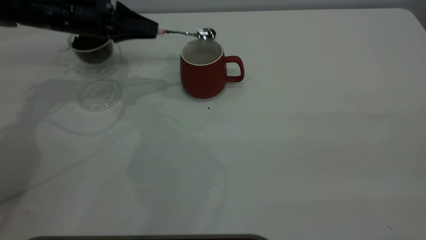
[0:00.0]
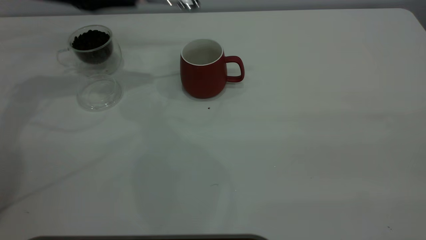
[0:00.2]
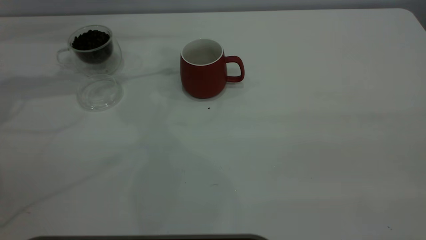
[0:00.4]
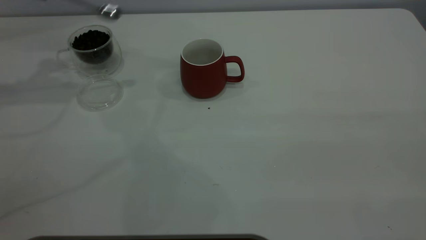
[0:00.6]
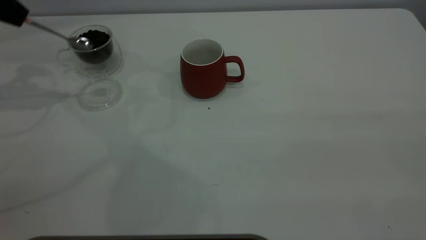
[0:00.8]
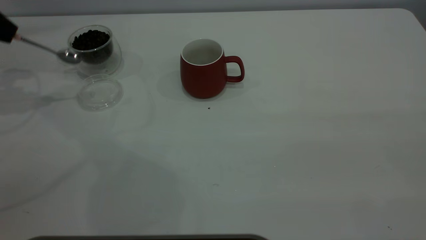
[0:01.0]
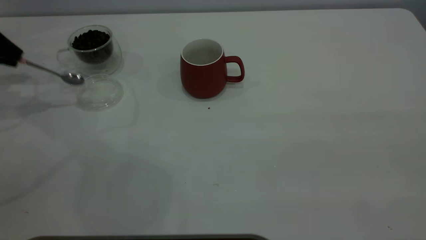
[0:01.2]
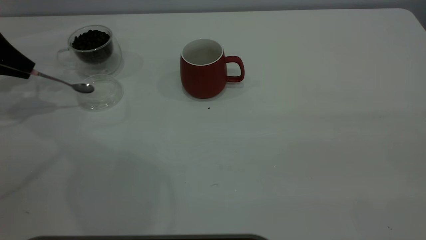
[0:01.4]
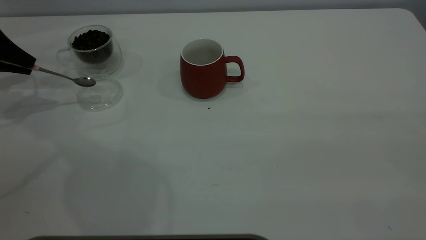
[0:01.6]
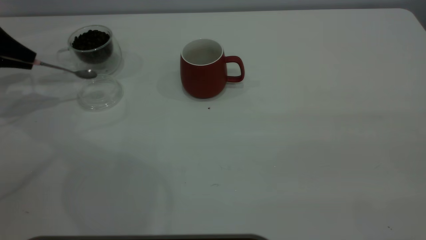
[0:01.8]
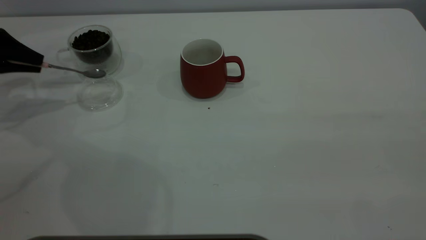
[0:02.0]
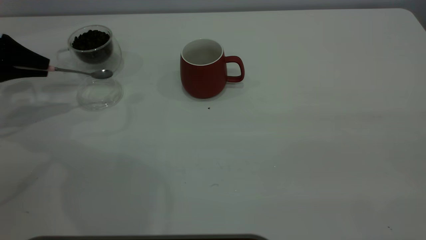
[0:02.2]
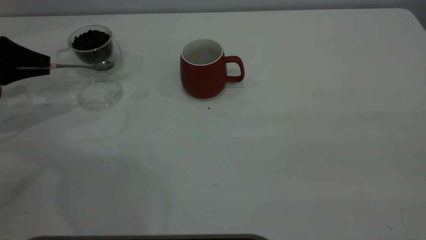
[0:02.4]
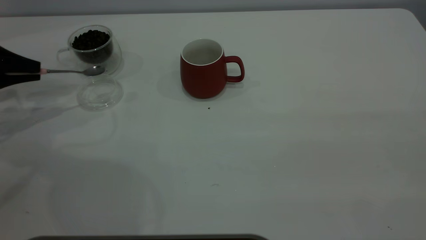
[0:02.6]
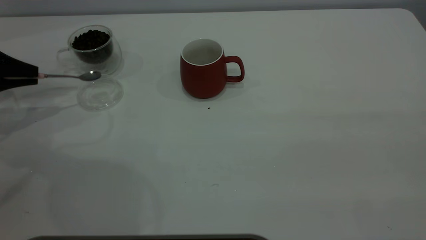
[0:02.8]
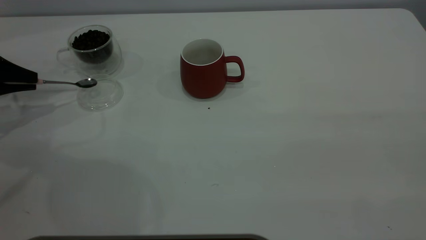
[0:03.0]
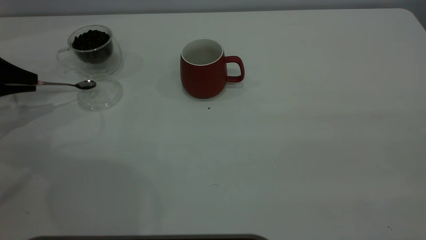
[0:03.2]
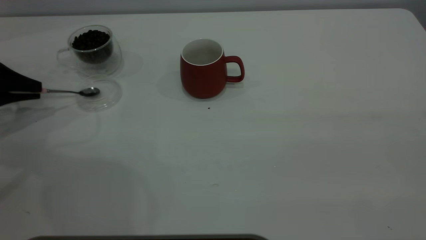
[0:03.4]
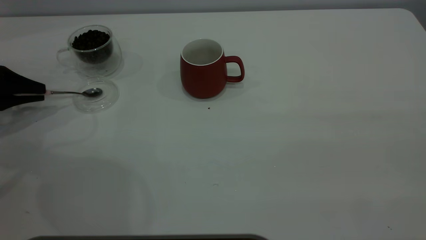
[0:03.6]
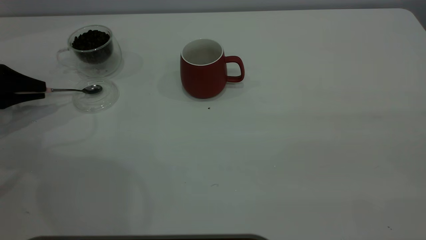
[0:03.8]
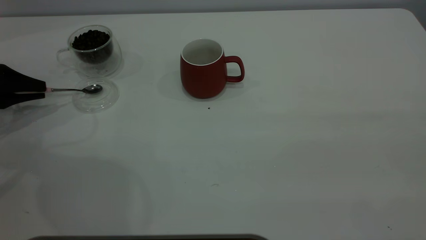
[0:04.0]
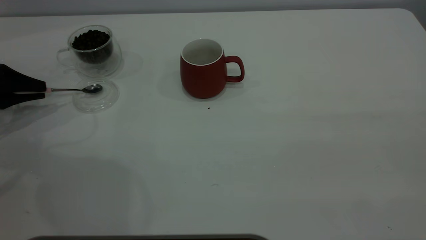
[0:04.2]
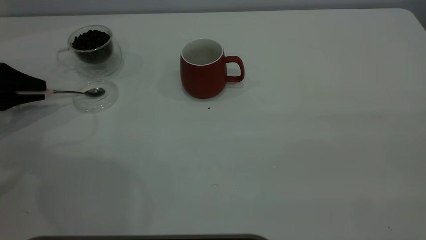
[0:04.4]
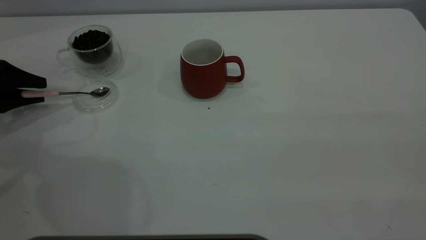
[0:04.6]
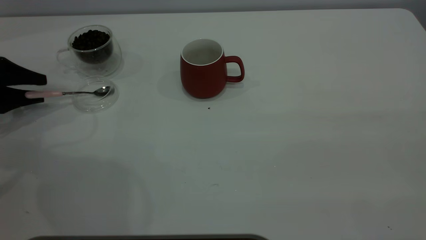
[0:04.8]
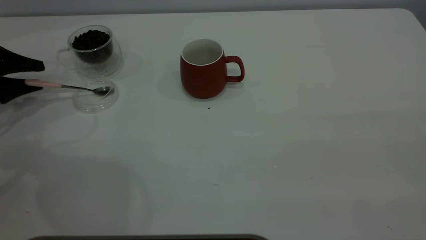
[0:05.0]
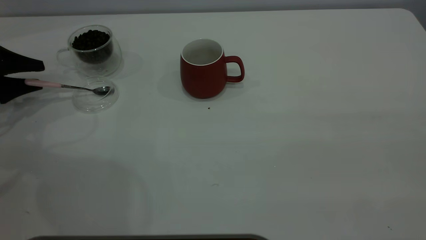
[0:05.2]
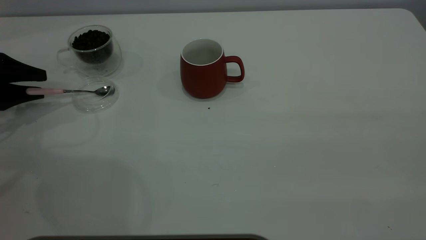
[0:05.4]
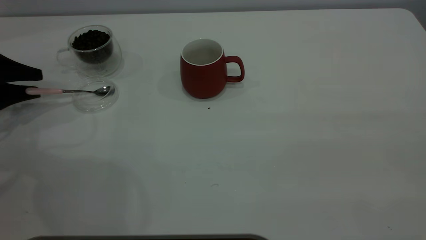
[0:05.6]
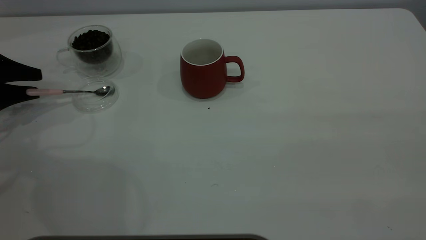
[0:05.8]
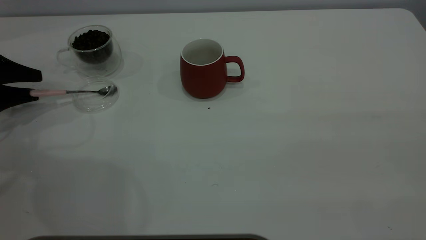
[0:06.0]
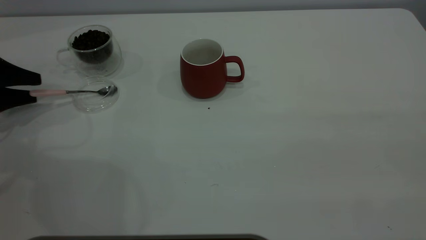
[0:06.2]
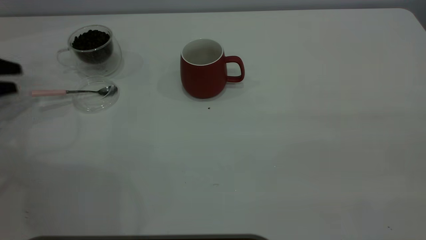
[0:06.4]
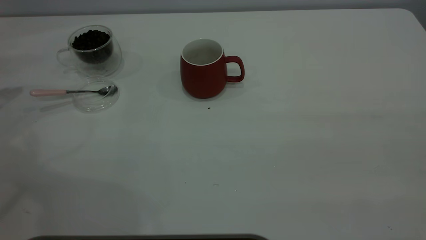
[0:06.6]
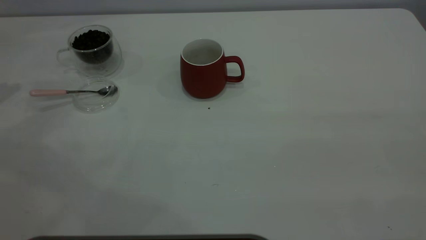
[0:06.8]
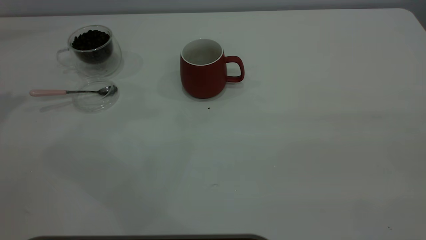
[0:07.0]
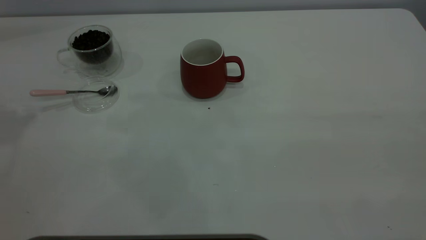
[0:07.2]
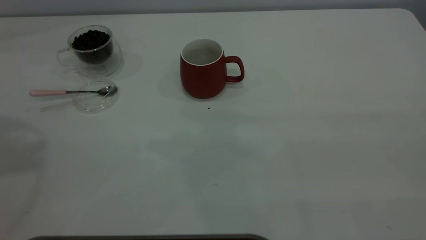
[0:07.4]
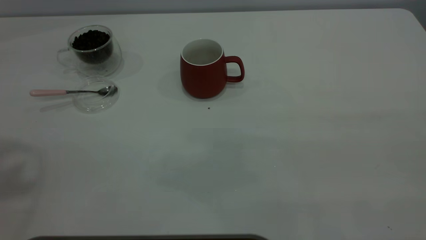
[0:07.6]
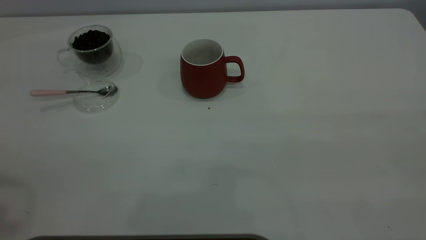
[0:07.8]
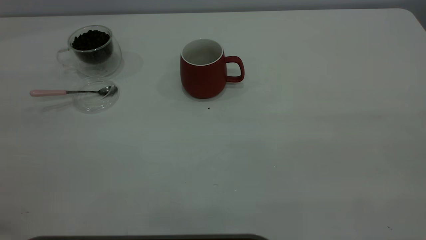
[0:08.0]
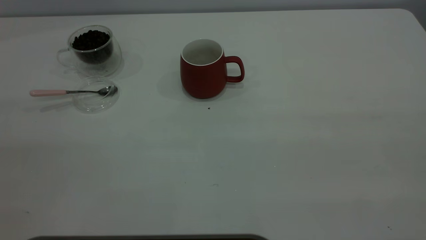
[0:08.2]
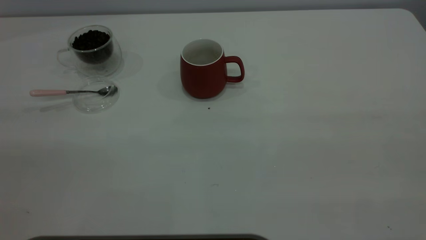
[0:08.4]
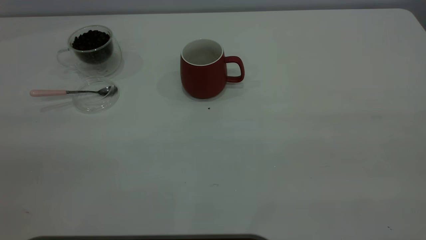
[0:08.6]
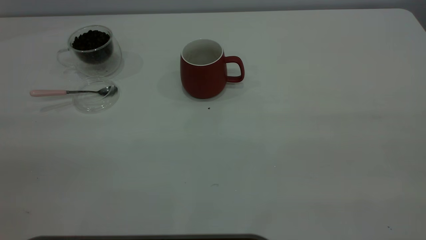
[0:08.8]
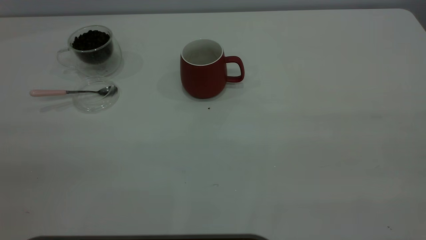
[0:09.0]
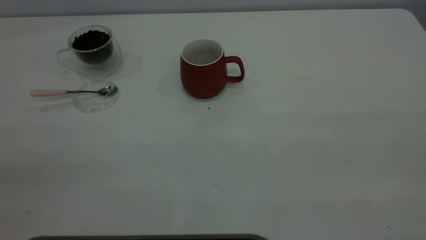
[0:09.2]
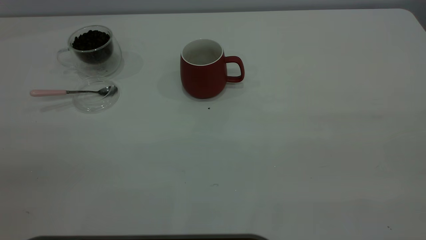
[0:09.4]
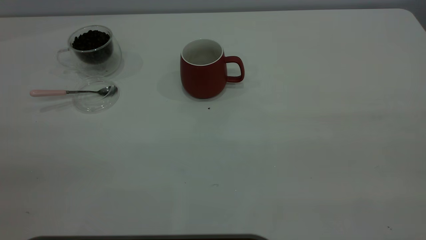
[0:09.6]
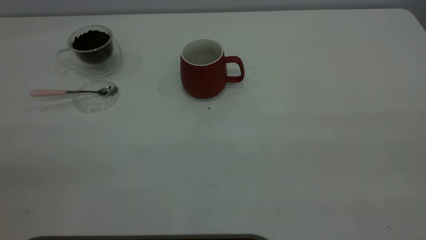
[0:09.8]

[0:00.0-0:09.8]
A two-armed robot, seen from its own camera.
Task of the whole recording: the right gripper place the red cup in the center of the table, the left gripper take the pink spoon from the cup lid and scoop out the coffee beans from the coffee cup and put them into the red cup, the left gripper put the spoon back into the cup lid.
Step, 0:00.2 to 0:06.4: Place the spoon back in its original place.
0:00.0 to 0:01.4: The left gripper heads to the left, covering approximately 20 cm.
0:01.4 to 0:02.8: The left gripper changes place by roughly 5 cm.
0:02.8 to 0:04.2: The grippers stay close to where they were, moving slightly.
0:04.2 to 0:05.6: The left gripper opens its fingers.
0:05.6 to 0:07.0: The left gripper goes roughly 30 cm upward.

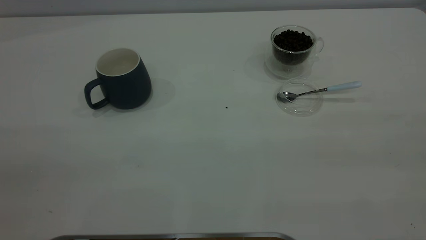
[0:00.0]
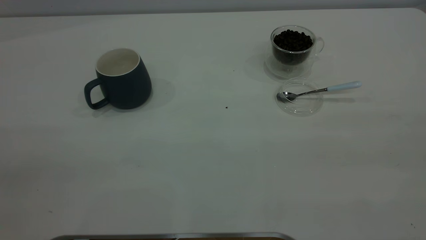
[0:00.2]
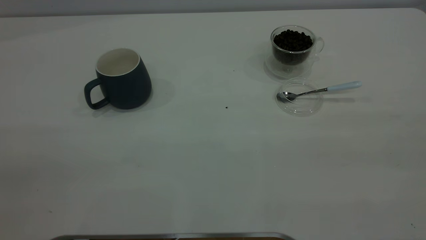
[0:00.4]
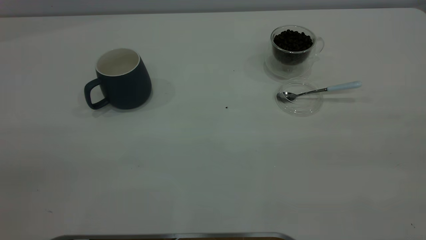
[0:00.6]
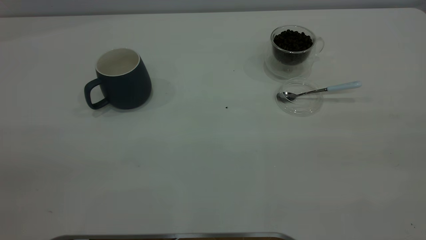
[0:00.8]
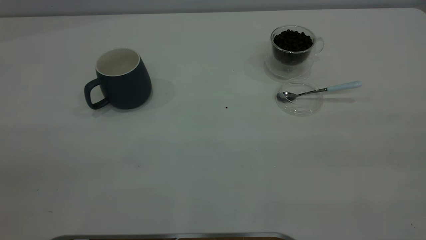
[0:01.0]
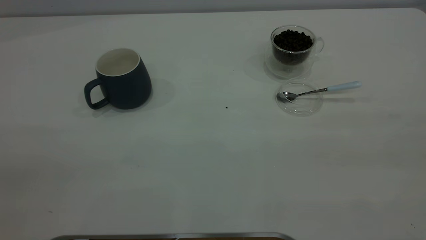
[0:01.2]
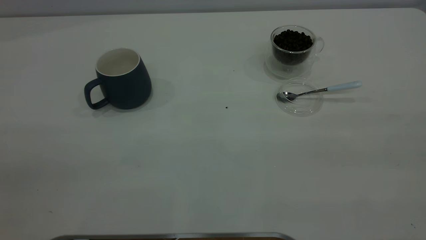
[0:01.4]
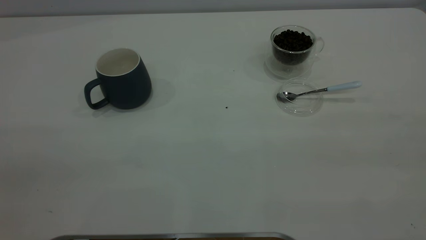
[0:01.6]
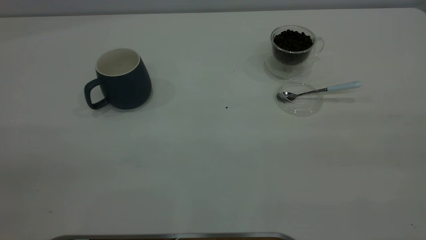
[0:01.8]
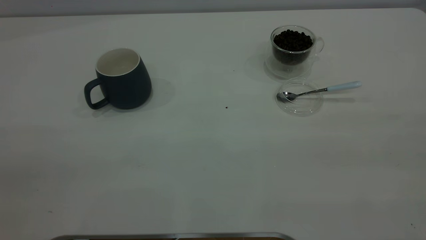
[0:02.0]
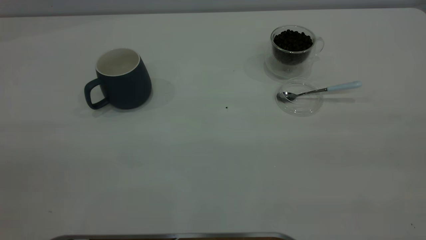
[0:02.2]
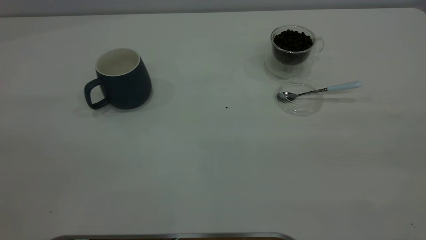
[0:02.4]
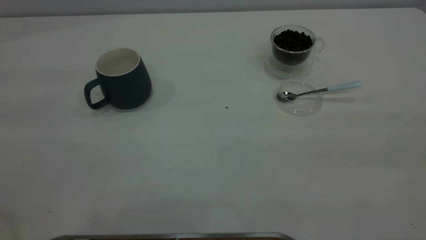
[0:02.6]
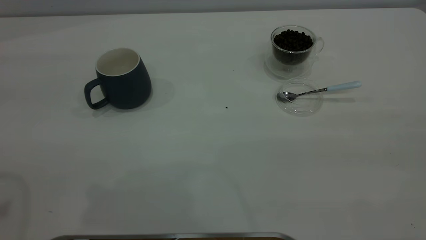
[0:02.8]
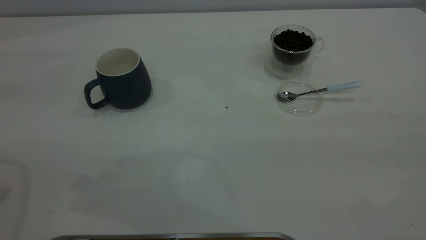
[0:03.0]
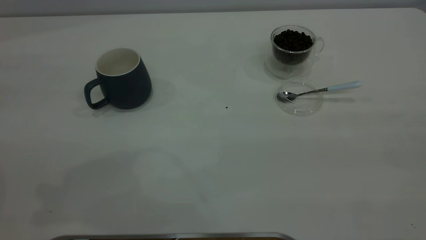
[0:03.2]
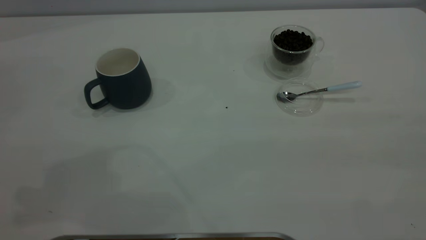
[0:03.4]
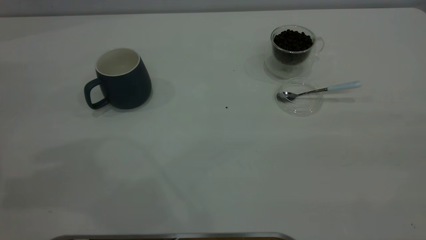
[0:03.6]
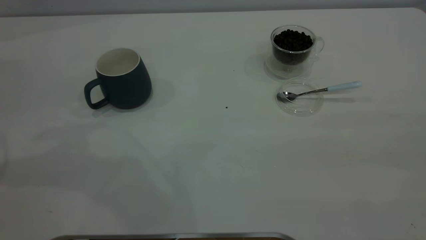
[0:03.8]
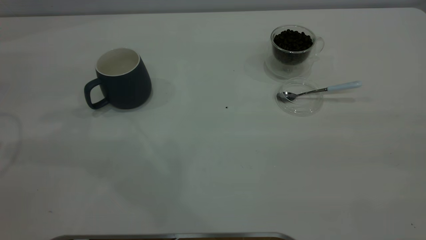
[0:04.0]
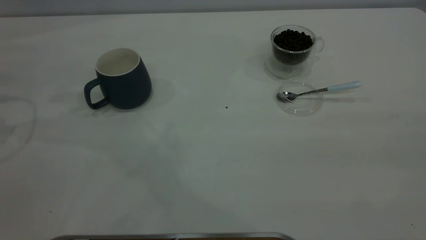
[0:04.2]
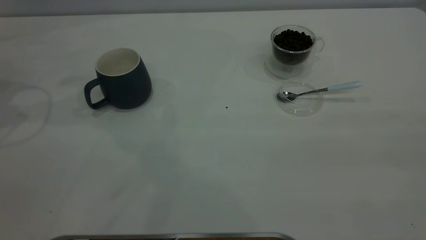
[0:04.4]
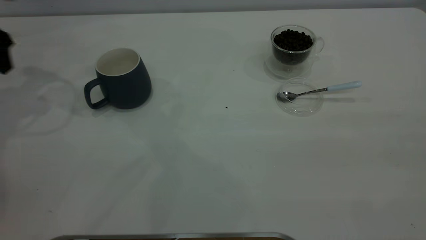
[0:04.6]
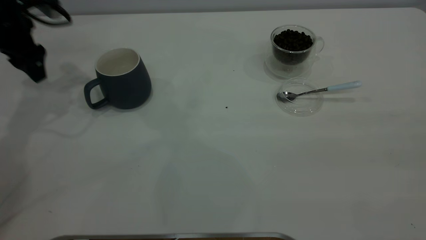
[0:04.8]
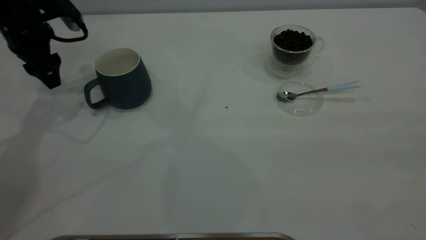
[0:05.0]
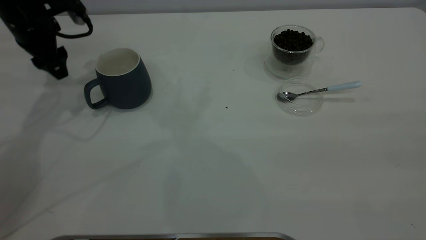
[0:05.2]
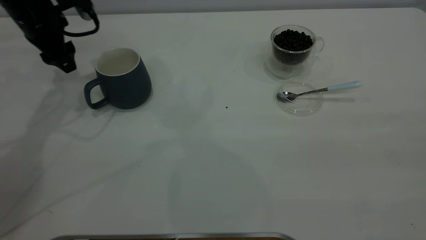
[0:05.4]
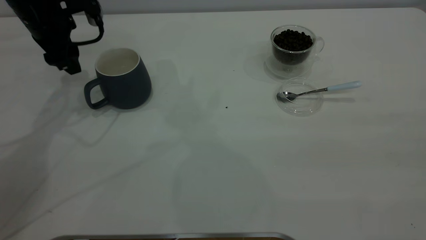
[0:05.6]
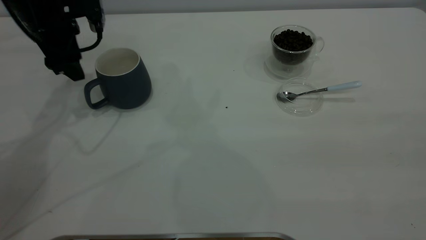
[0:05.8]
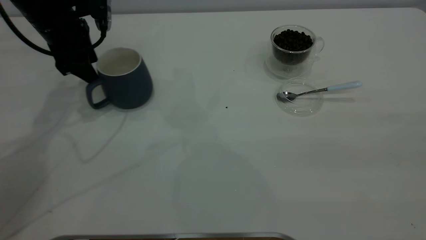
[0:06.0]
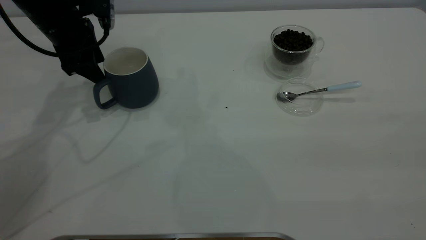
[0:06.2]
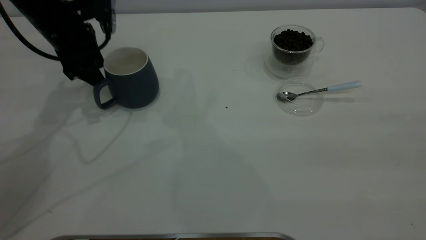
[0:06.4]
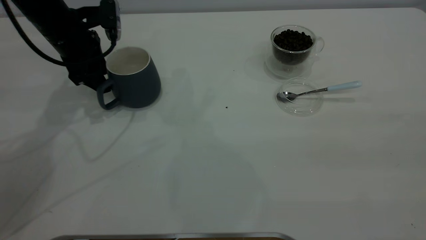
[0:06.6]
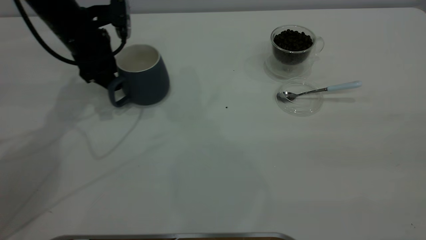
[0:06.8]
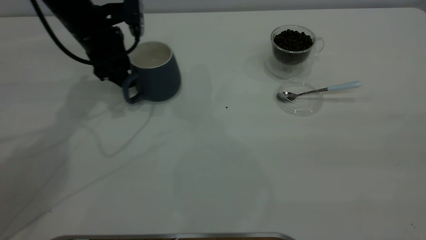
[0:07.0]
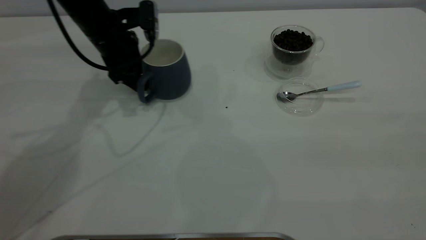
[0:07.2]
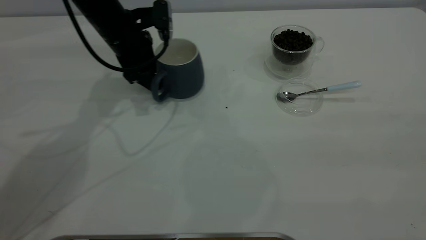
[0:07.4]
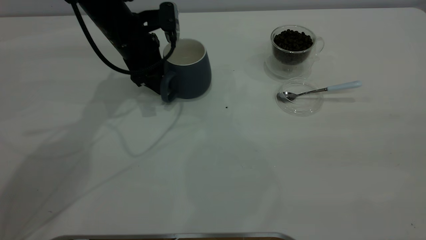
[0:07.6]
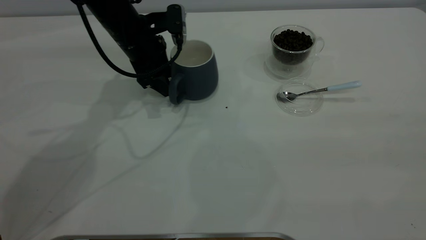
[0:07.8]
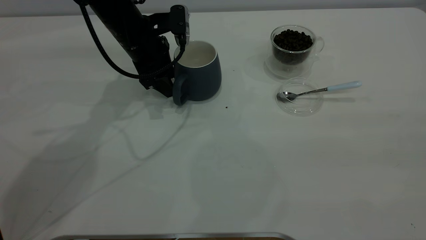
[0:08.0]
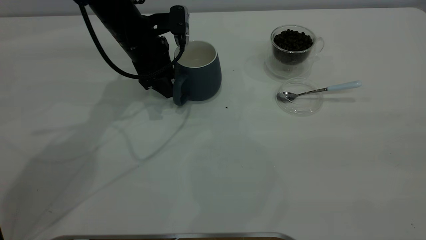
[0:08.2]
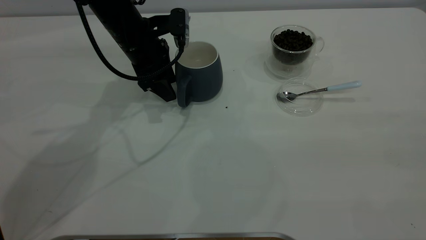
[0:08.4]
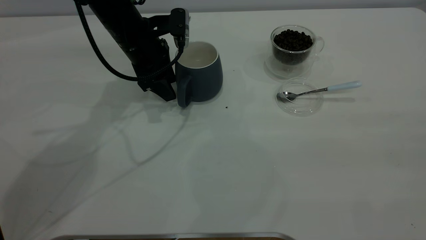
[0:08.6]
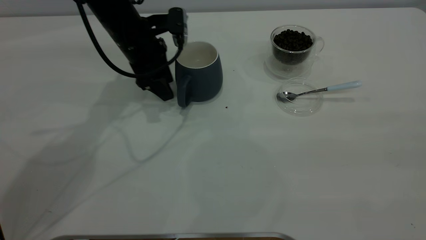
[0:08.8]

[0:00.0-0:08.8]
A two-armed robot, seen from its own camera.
Task of the whole recording: the left gripper place the grey cup in the center of the table, the right gripper take the blue spoon from the cup lid and scoop out the coffee beans from the coffee cup and put them into the grey cup, the right gripper put the spoon back into the cup lid.
0:00.0 to 0:01.4: Neither gripper changes place.
0:04.4 to 0:05.8: The left gripper is displaced to the right and downward by some 15 cm.
0:05.8 to 0:07.4: The left gripper shifts about 10 cm to the right.
0:07.4 to 0:08.8: The grippers make only small movements.
